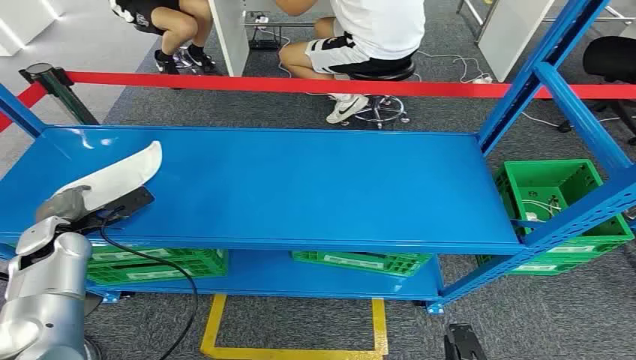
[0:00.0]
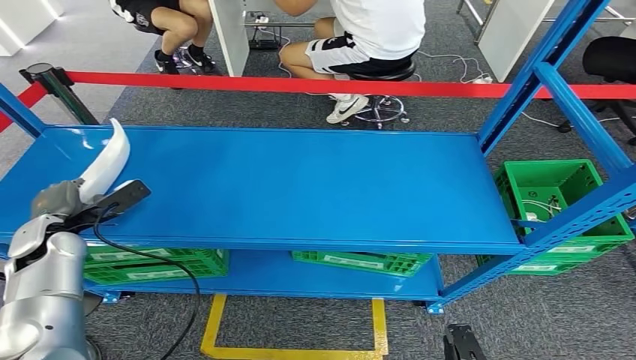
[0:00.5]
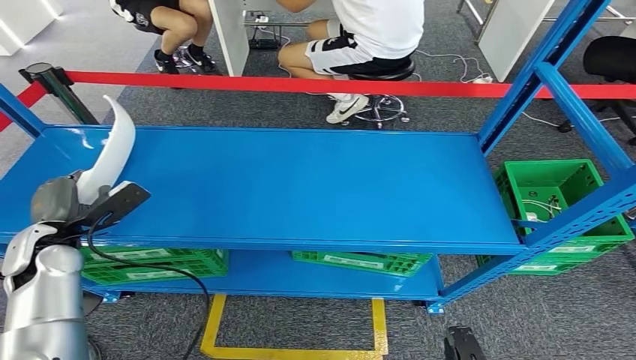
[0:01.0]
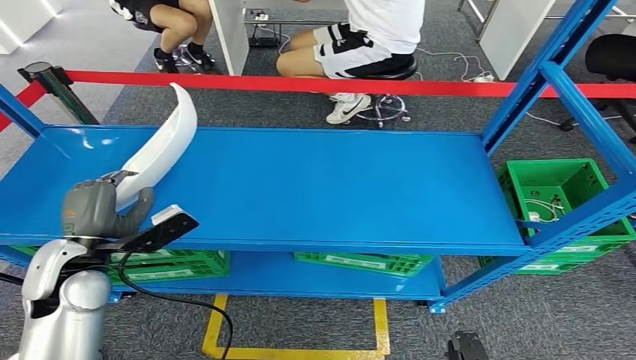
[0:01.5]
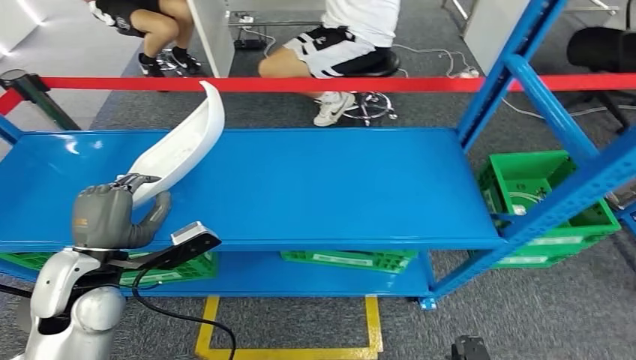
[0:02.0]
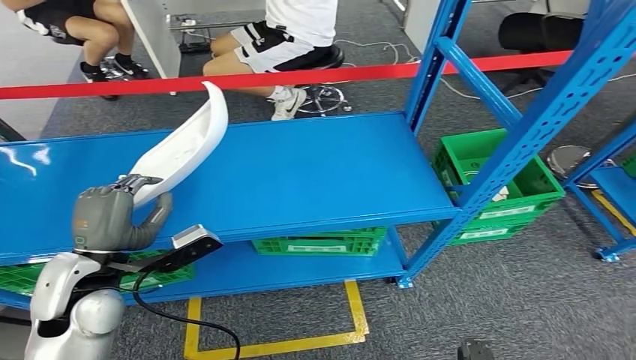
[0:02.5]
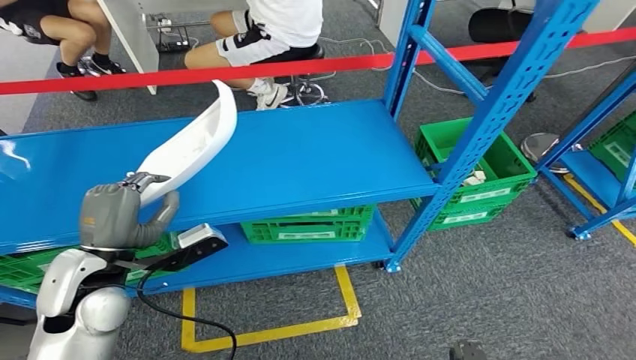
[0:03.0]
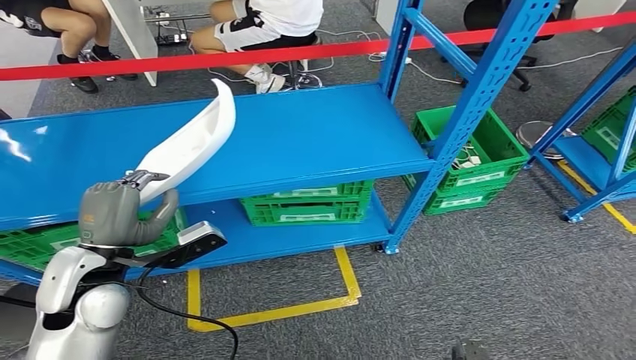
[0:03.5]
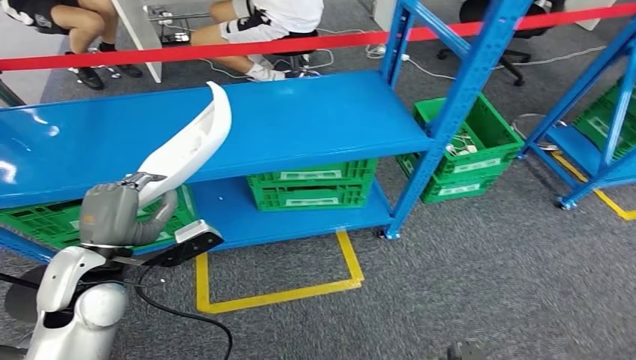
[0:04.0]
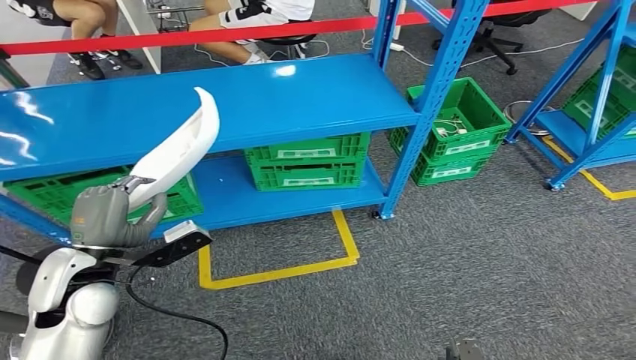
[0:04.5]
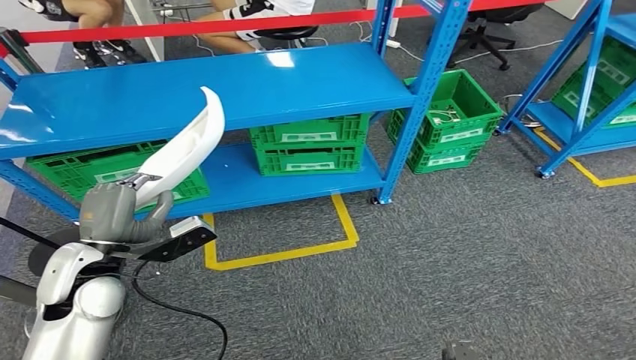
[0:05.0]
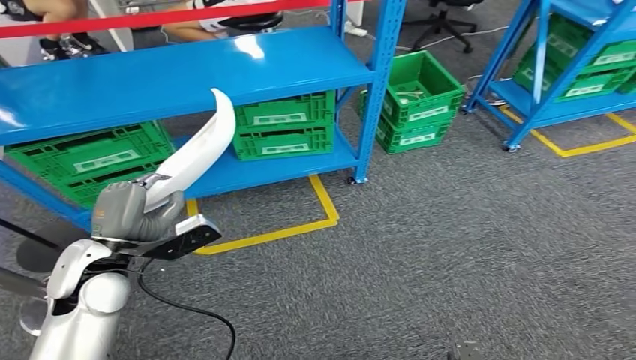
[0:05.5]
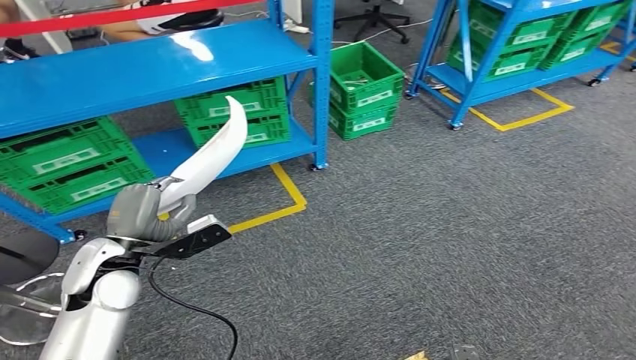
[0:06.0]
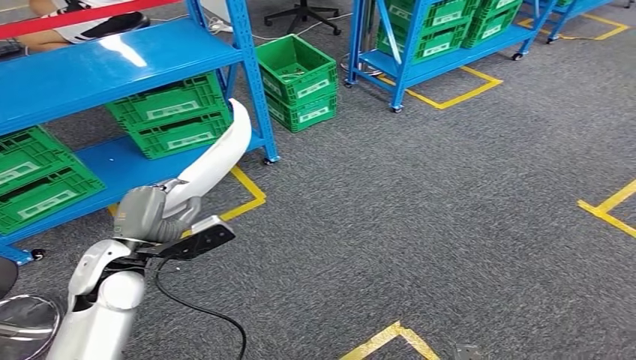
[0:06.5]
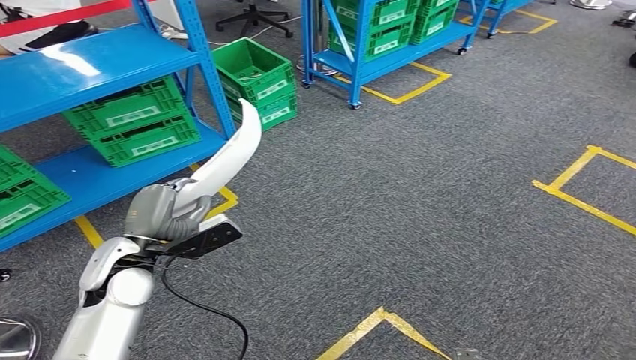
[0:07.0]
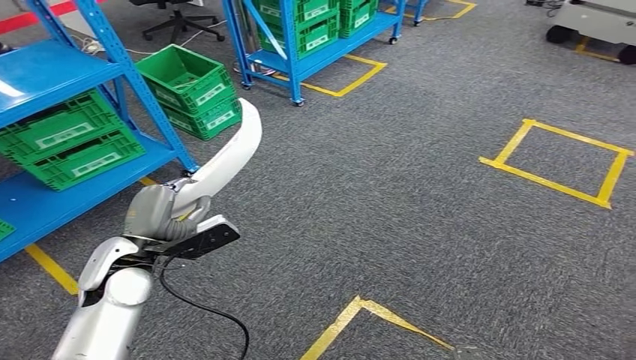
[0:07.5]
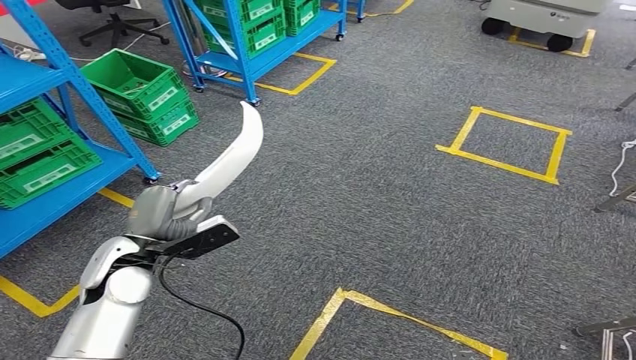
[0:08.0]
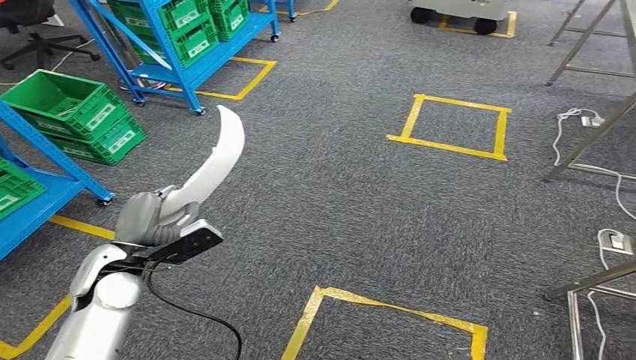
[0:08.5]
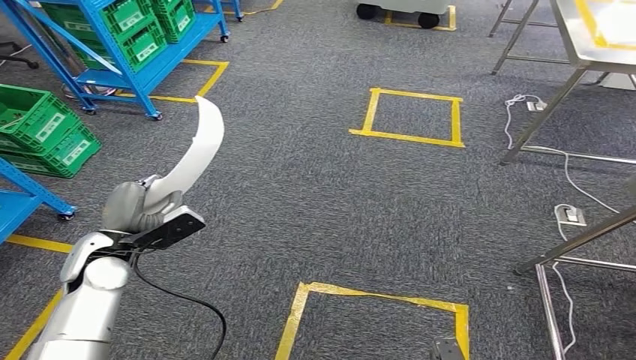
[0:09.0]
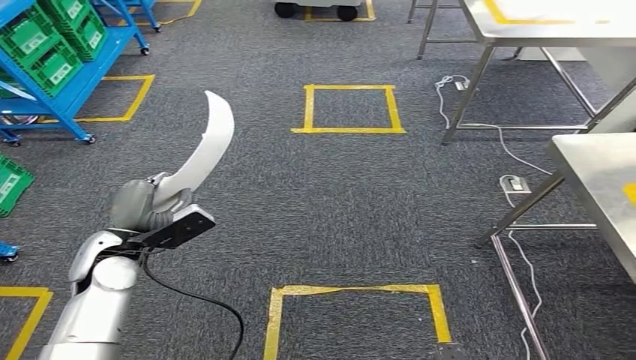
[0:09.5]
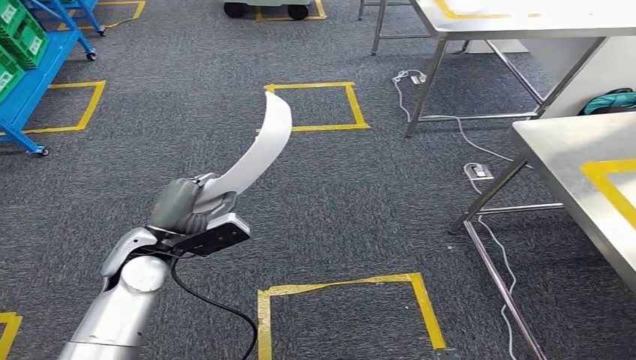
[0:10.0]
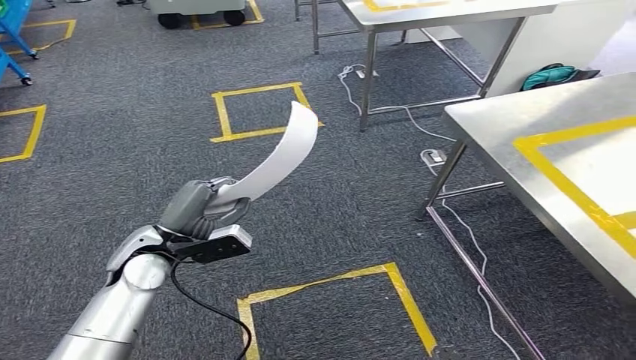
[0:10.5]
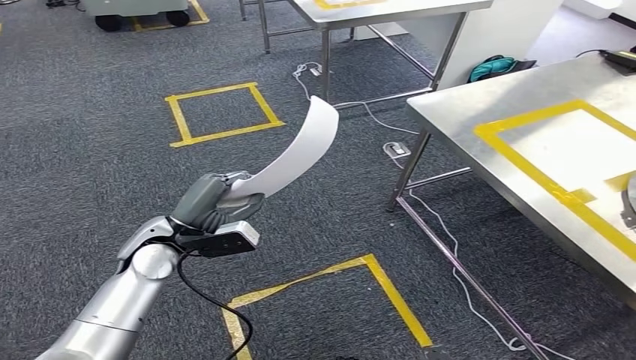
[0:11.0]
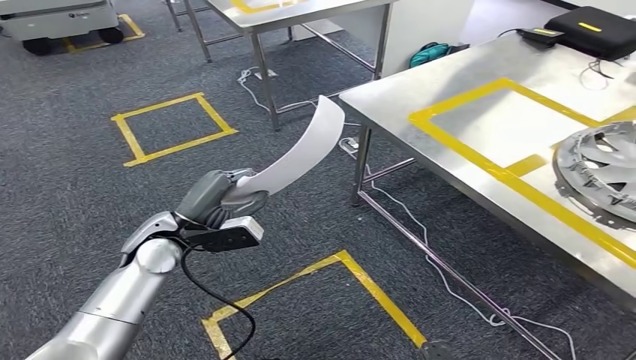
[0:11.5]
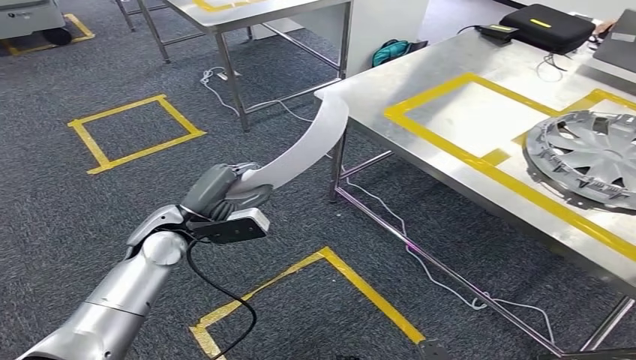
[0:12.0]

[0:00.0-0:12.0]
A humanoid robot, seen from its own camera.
Step, 0:00.0 to 0:02.0: Pick up the small component from the shelf.

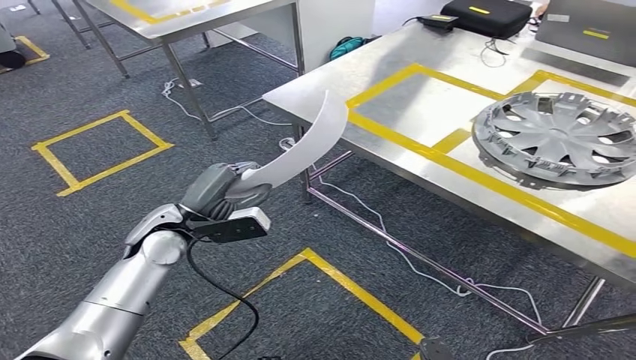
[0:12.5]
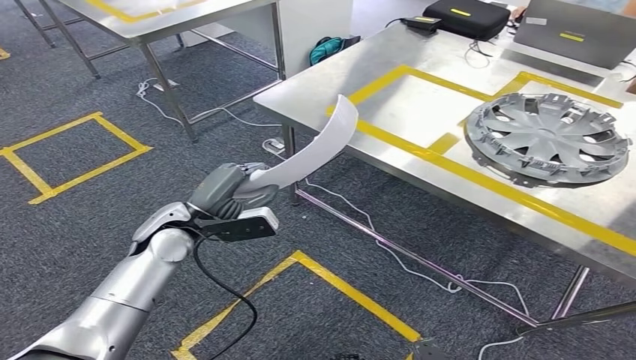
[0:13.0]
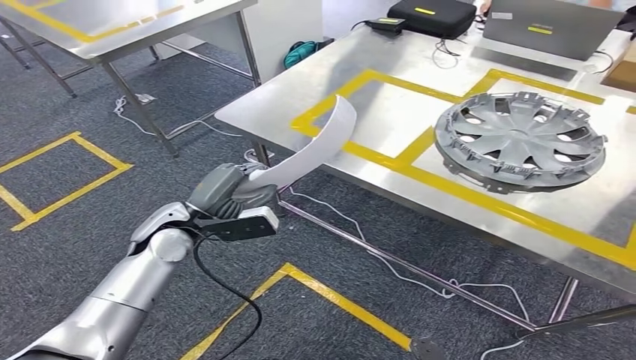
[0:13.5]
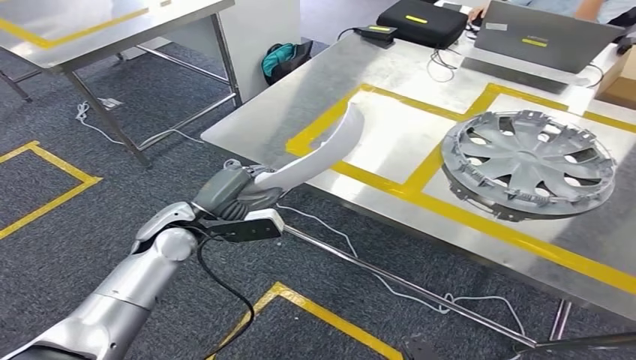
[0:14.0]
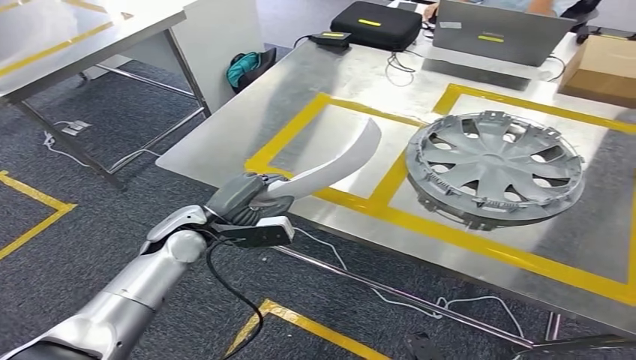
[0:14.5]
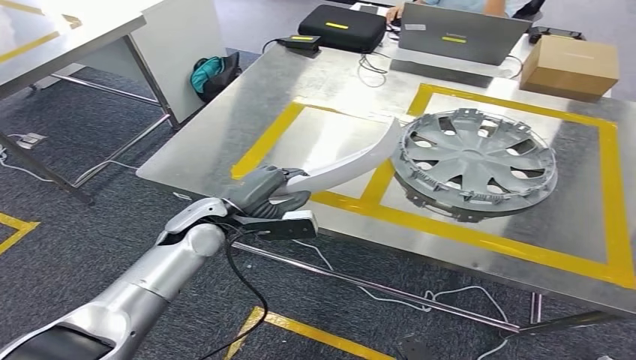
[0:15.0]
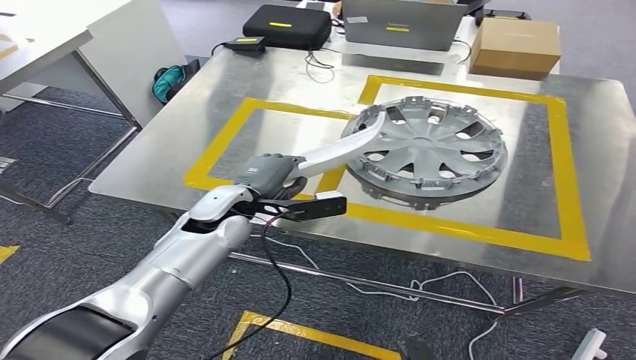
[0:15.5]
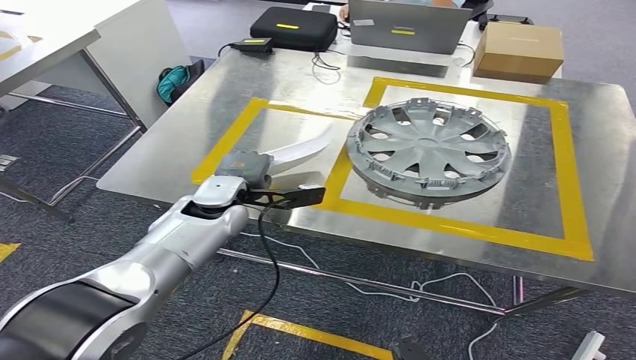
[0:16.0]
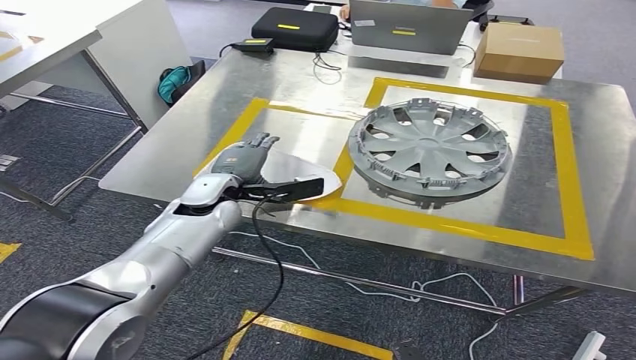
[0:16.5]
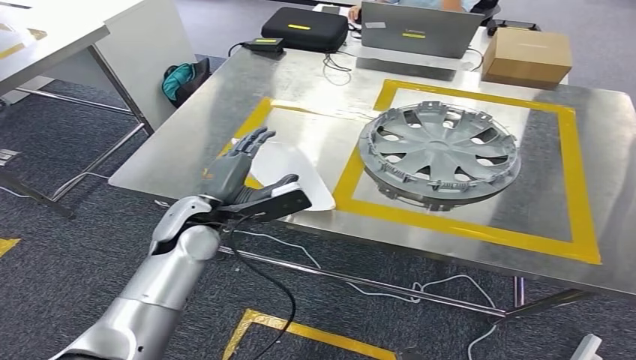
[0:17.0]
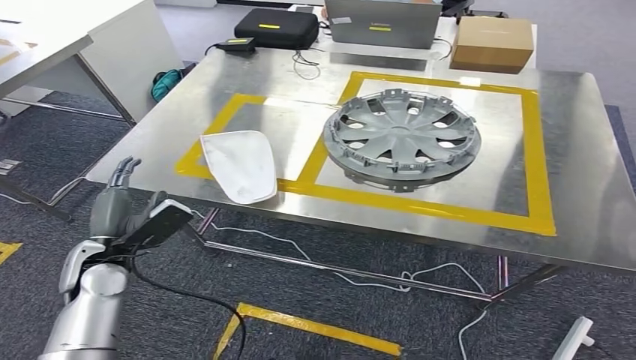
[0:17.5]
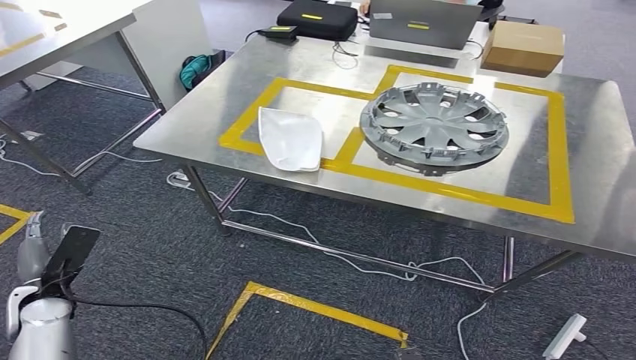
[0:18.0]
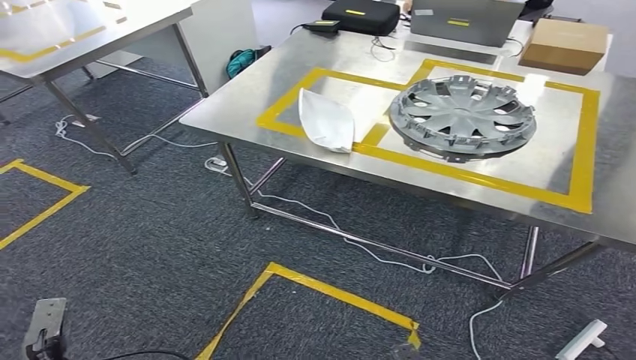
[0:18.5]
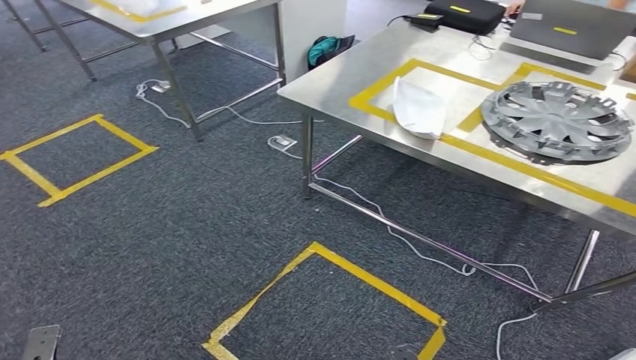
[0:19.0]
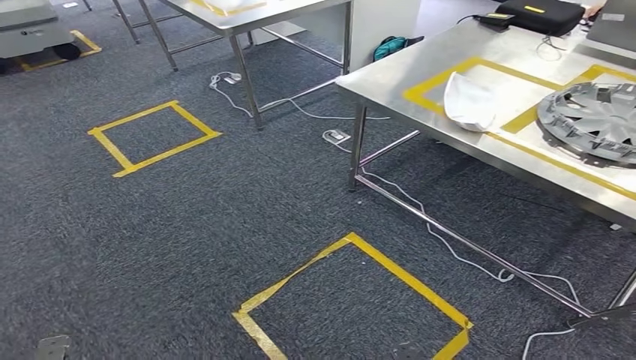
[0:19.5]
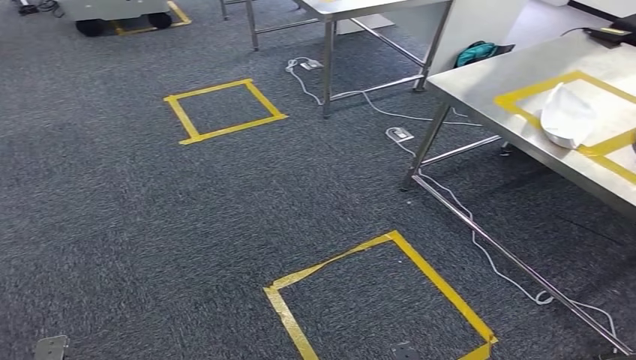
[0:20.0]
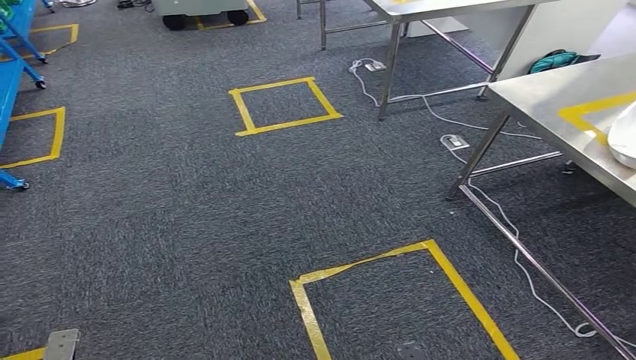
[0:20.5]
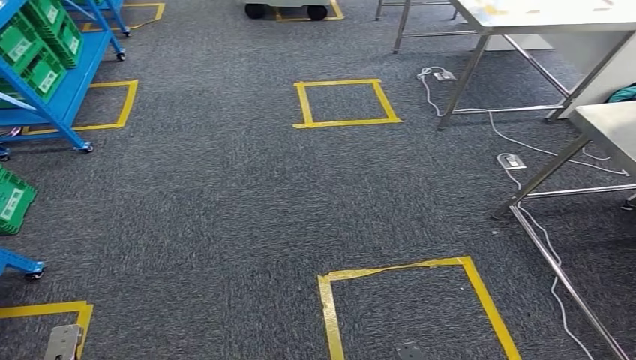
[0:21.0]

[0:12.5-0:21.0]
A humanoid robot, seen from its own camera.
Step, 0:12.5 to 0:15.0: Move the small component to the workbench.
Step, 0:15.5 to 0:19.5: Insert the small component into the corresponding slot on the workbench.
